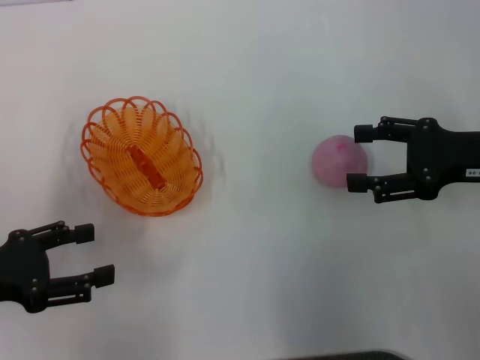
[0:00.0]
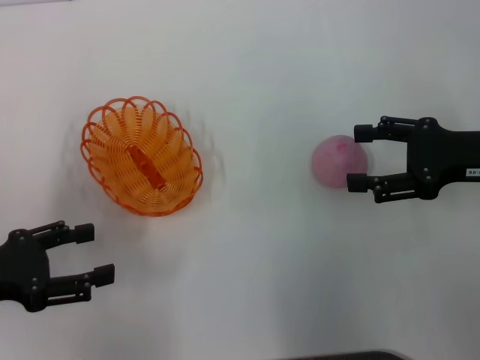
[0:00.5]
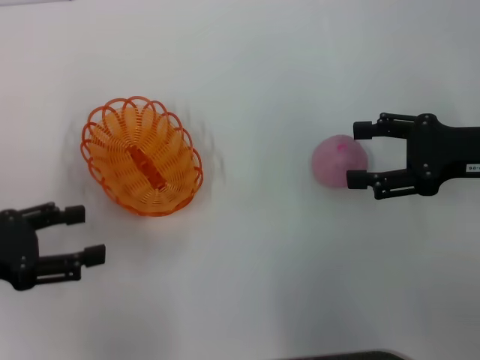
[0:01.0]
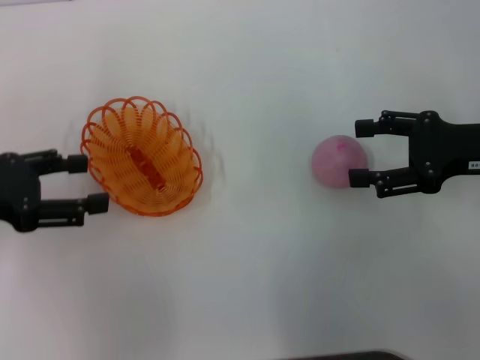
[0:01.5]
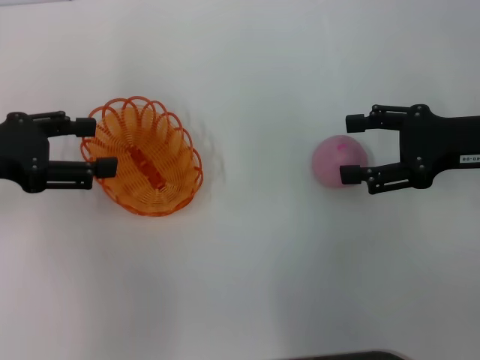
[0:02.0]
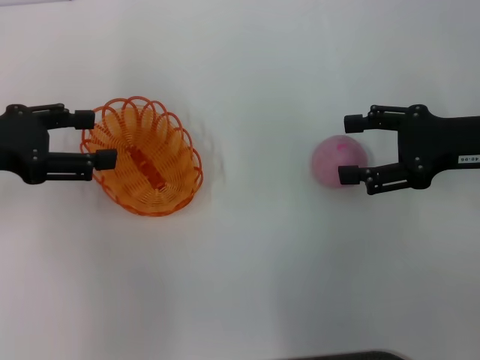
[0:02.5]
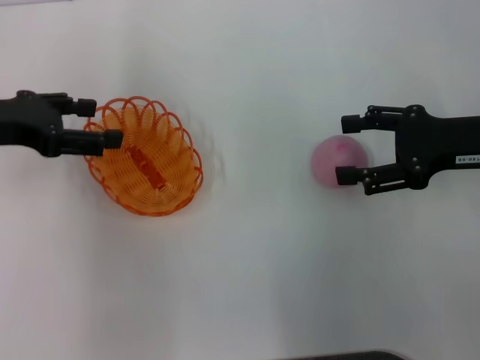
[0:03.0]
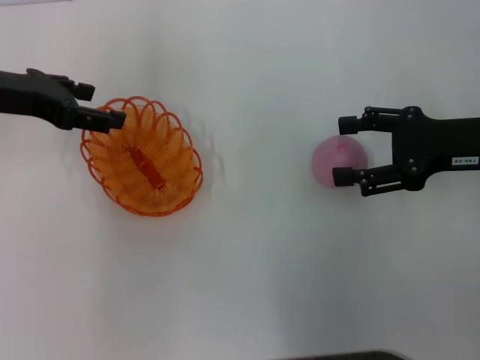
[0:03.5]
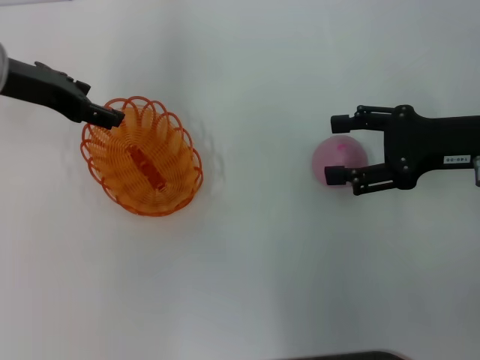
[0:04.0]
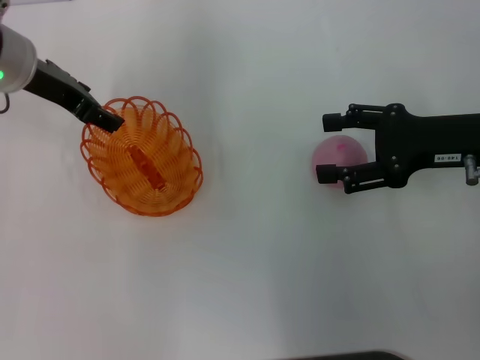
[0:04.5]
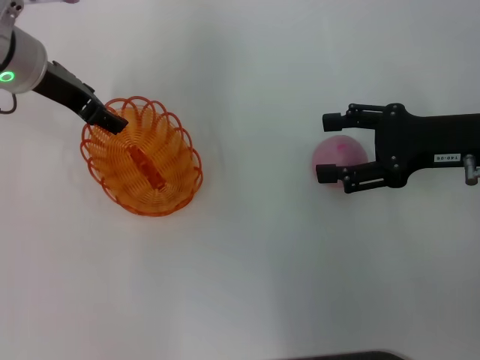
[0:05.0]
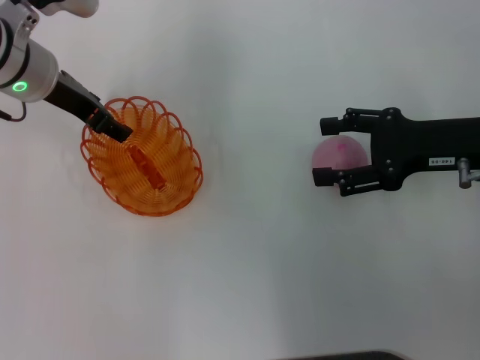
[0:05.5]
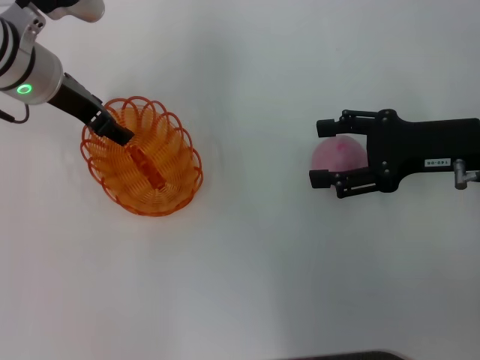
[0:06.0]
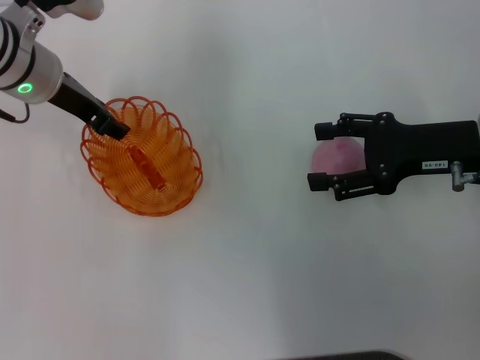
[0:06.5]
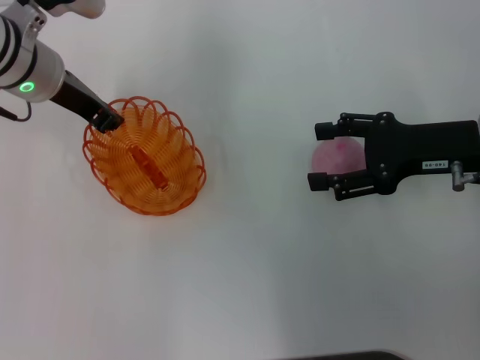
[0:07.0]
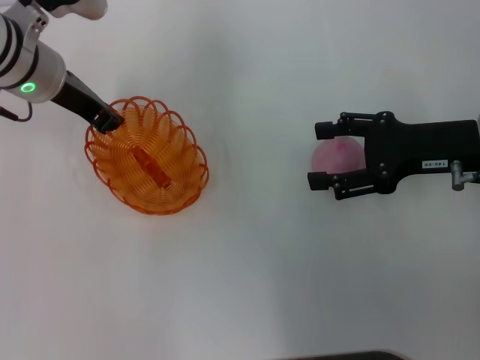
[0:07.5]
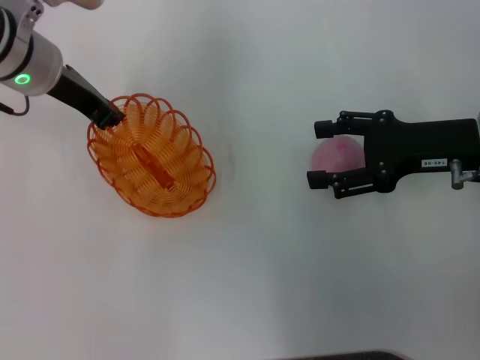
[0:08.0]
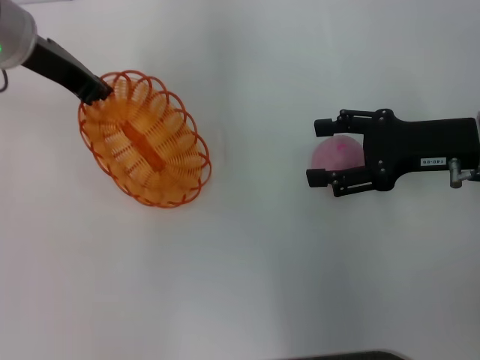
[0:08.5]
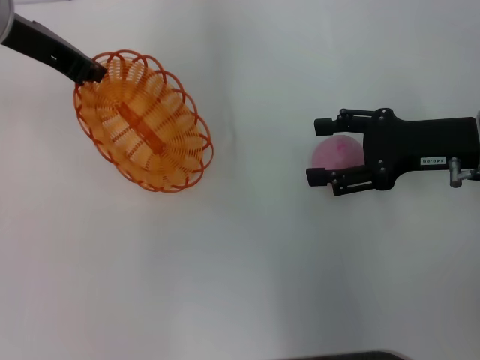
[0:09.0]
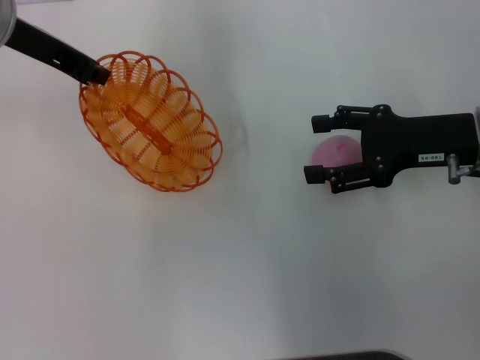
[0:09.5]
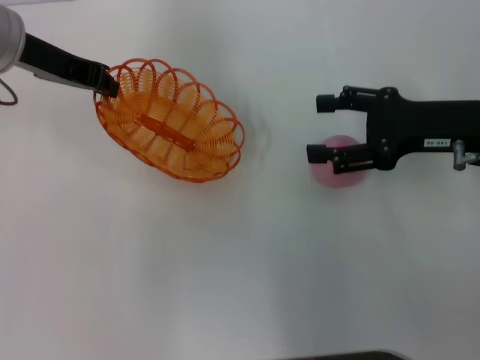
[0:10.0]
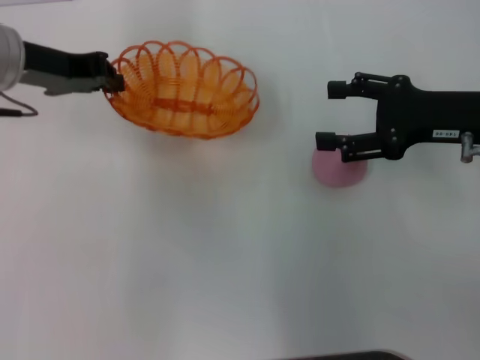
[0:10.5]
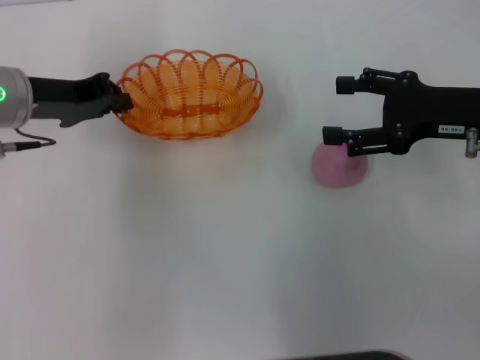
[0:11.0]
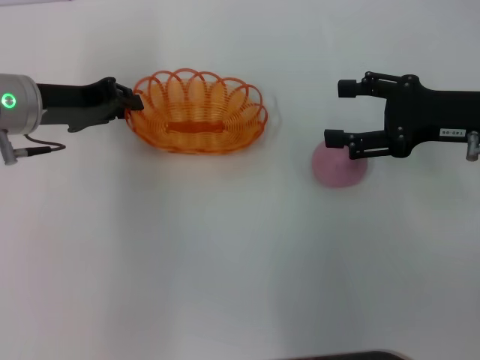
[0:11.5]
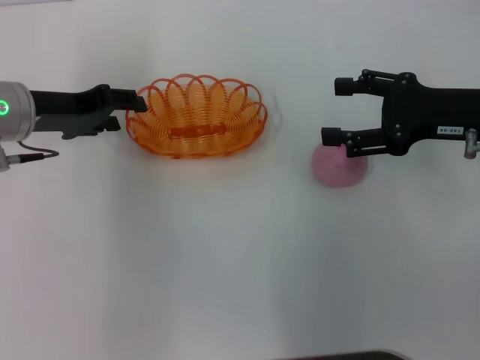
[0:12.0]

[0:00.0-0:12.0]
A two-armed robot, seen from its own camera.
Step, 0:00.0 to 0:08.5: Pick up the basket with the left gripper.
0:00.0 to 0:02.0: The left gripper goes roughly 10 cm forward and upward.
0:02.0 to 0:04.0: The left gripper goes approximately 10 cm forward and to the right.
0:04.0 to 0:06.0: The left gripper ends up approximately 5 cm from where it was.
0:06.0 to 0:08.0: The left gripper closes its fingers.
0:10.0 to 0:12.0: The left gripper heads downward, covering some 10 cm, and opens its fingers.

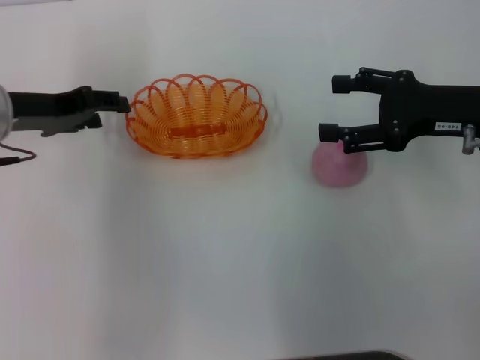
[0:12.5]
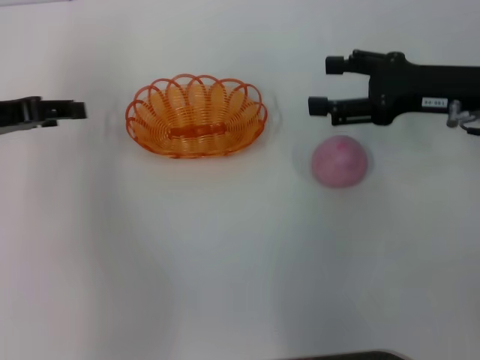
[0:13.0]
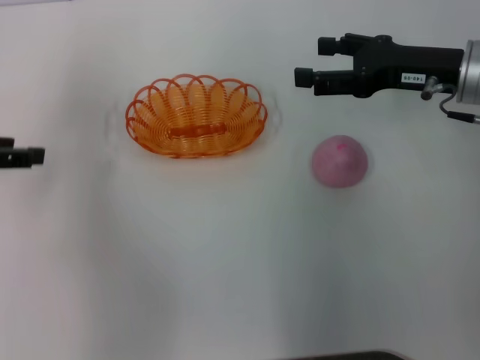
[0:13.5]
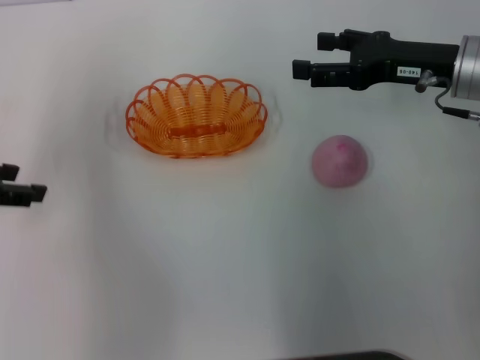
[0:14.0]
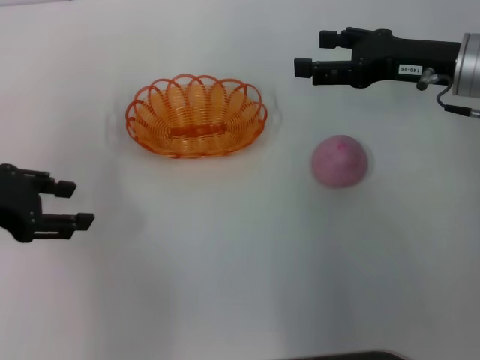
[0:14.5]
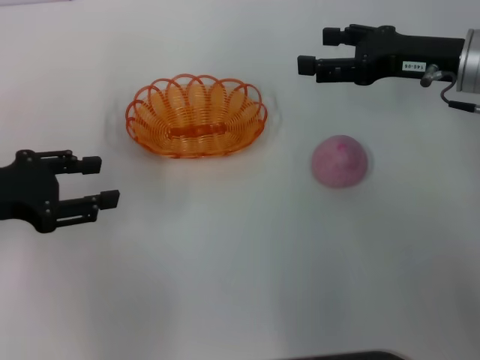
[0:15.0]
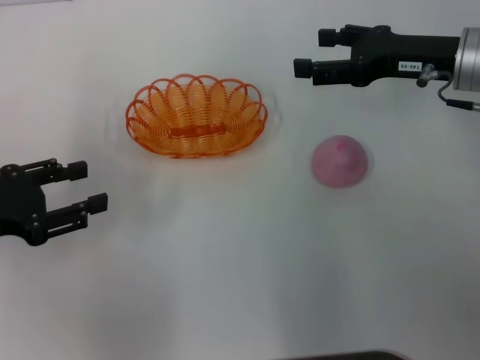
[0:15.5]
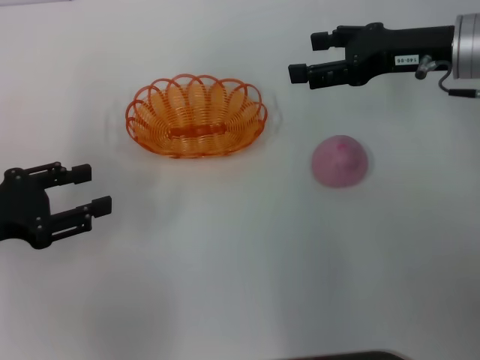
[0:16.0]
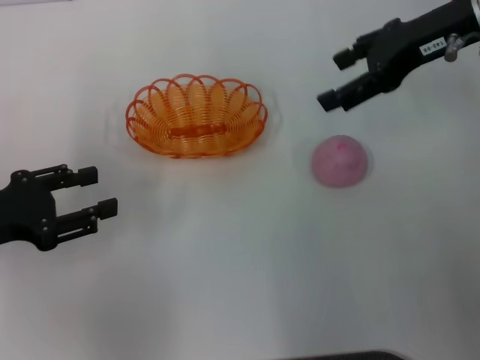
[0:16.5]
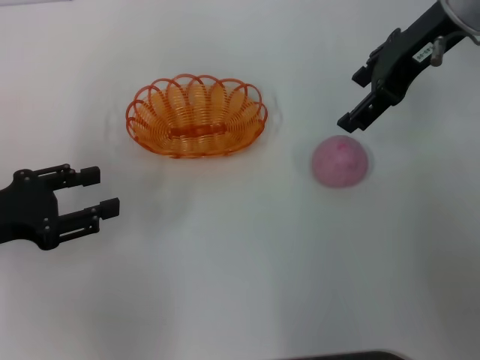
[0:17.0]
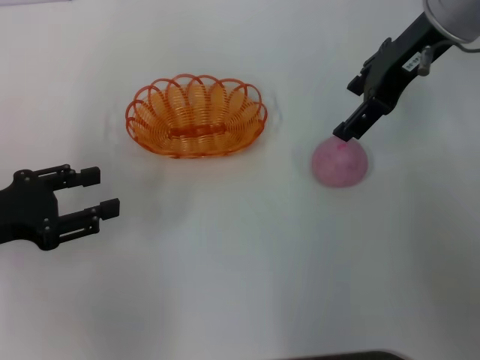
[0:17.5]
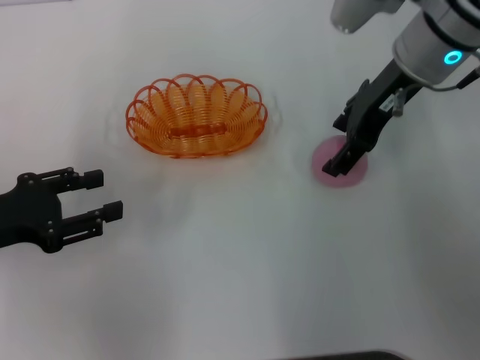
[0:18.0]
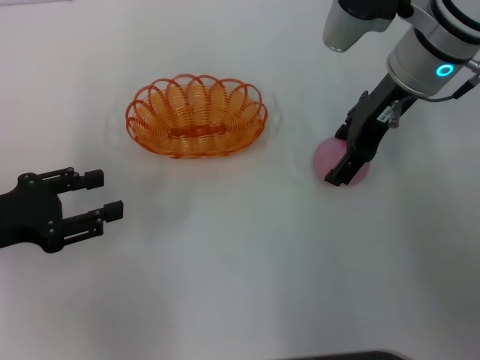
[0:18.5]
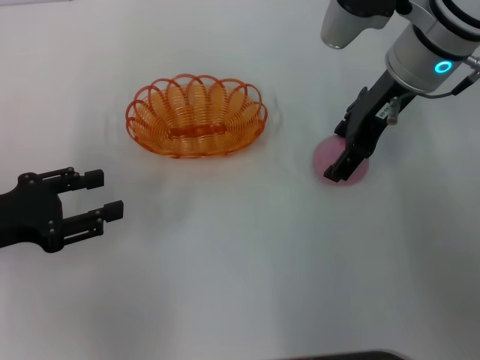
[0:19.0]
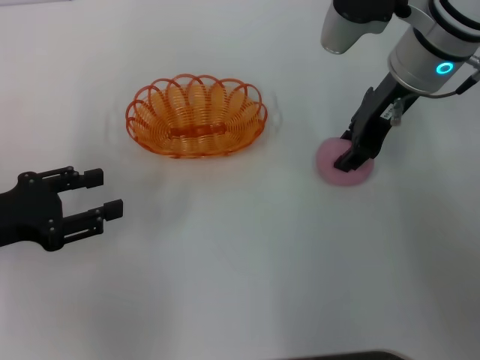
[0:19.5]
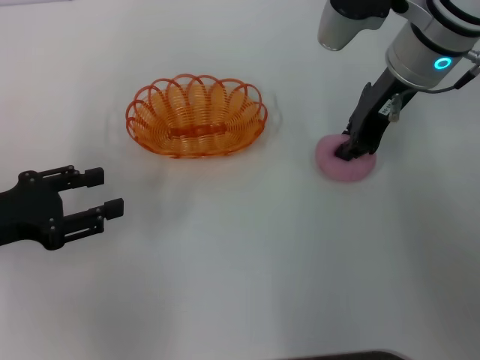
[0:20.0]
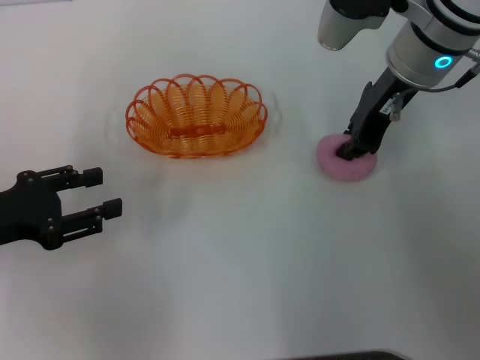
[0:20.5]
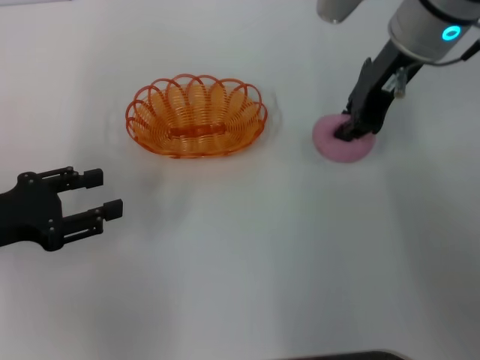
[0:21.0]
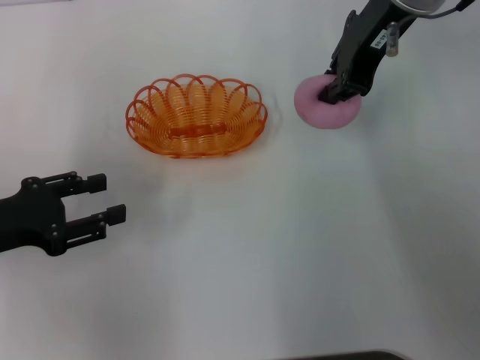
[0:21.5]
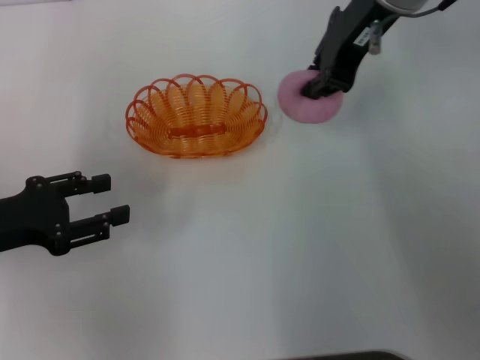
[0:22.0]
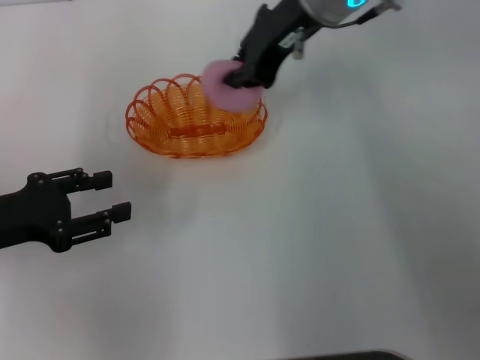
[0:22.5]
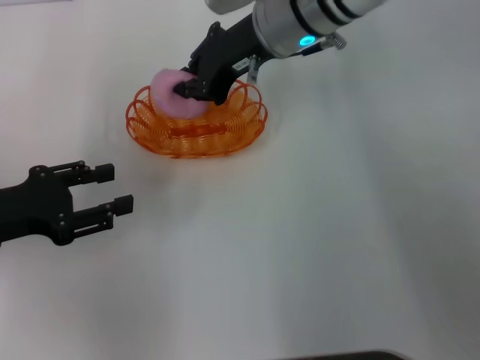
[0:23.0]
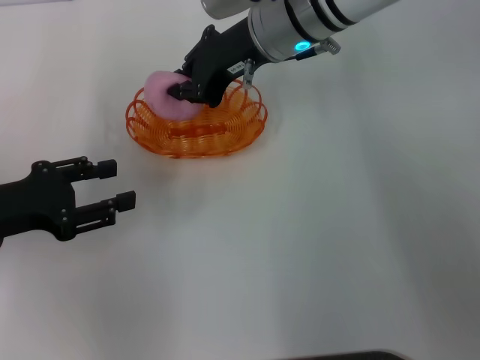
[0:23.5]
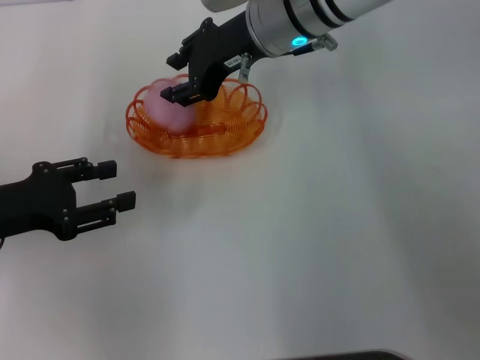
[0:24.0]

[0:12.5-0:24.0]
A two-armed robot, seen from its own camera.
Step, 0:13.5 to 0:21.0: Pick up the peach with the right gripper.
0:12.5 to 0:14.5: The left gripper goes roughly 10 cm backward and to the left; the right gripper changes place by about 5 cm.
0:14.5 to 0:16.5: The right gripper goes approximately 10 cm upward. The left gripper shifts by about 5 cm.
0:16.5 to 0:18.5: The right gripper moves to the left, approximately 5 cm.
0:18.5 to 0:20.0: The right gripper closes its fingers.
0:20.0 to 0:22.0: The right gripper shifts some 10 cm upward.
0:22.0 to 0:24.0: The right gripper shifts approximately 10 cm downward and to the left.

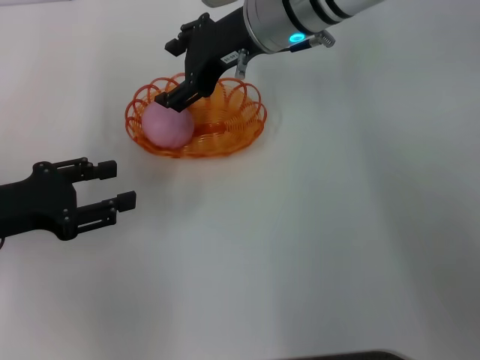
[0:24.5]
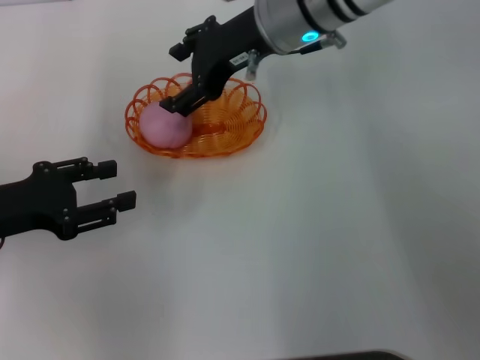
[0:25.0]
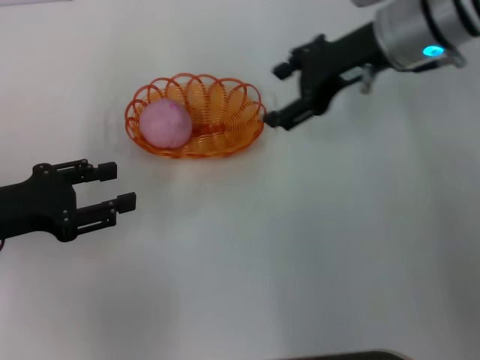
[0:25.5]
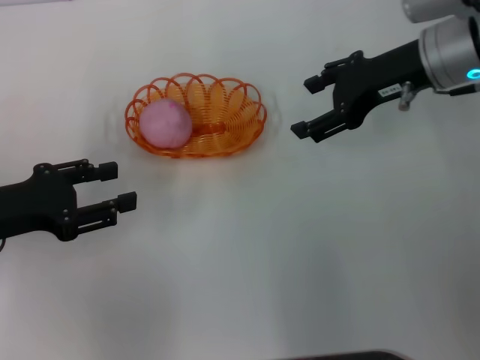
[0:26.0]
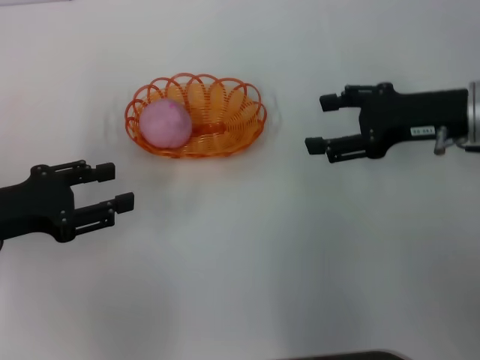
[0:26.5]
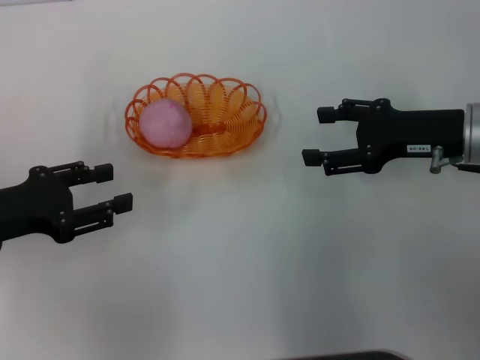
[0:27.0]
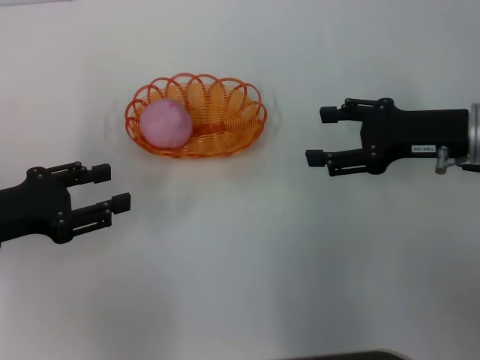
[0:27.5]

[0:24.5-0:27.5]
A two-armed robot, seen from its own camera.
0:24.5 to 0:26.0: The right gripper goes some 15 cm to the right.
0:26.0 to 0:27.5: The right gripper goes some 10 cm downward and backward.
